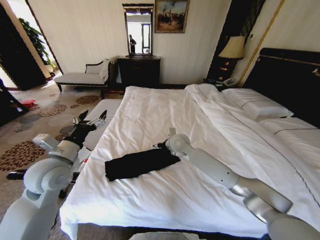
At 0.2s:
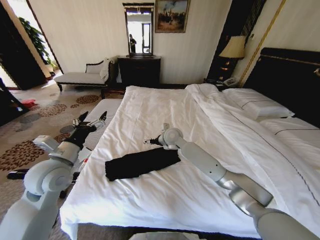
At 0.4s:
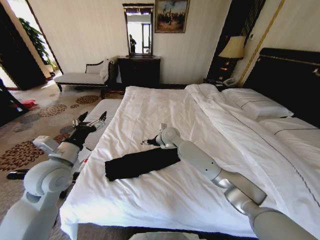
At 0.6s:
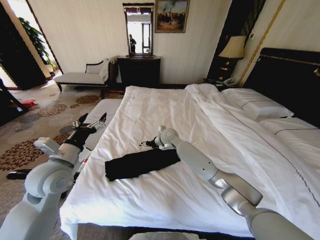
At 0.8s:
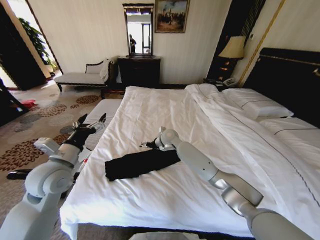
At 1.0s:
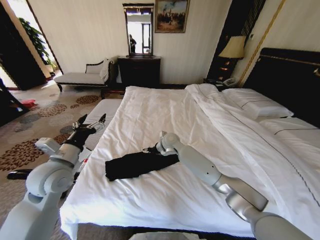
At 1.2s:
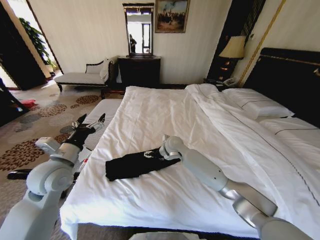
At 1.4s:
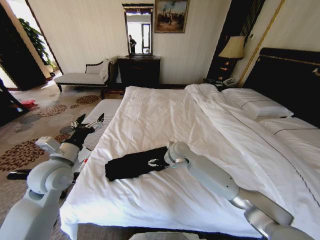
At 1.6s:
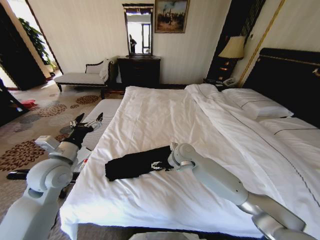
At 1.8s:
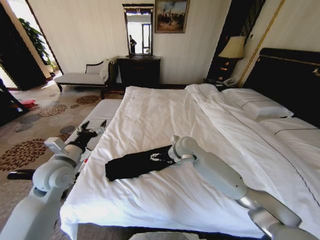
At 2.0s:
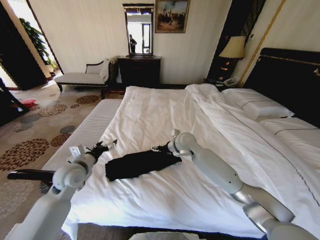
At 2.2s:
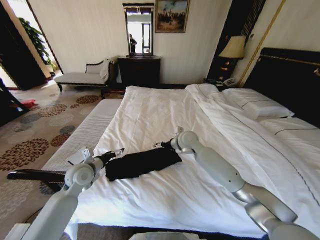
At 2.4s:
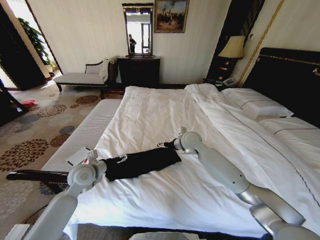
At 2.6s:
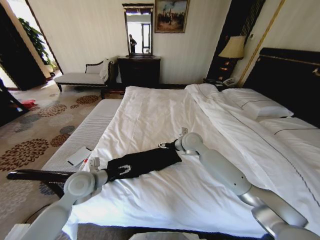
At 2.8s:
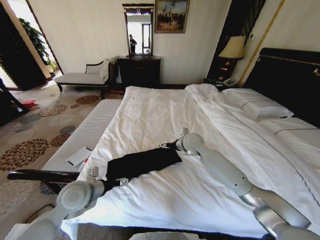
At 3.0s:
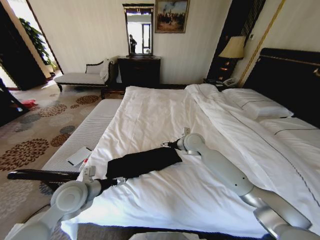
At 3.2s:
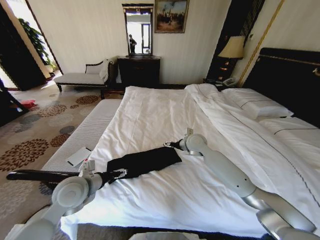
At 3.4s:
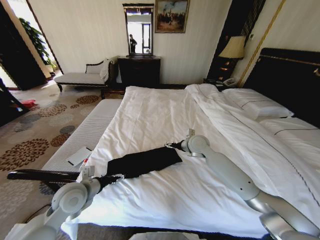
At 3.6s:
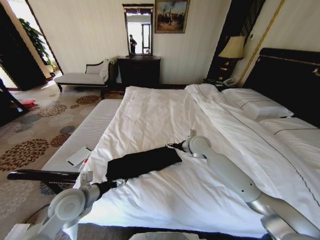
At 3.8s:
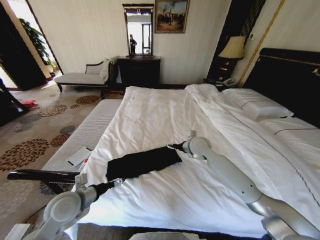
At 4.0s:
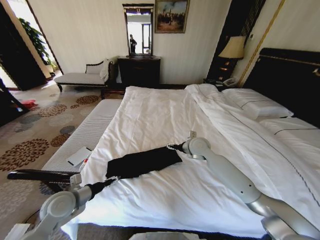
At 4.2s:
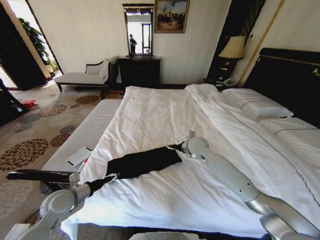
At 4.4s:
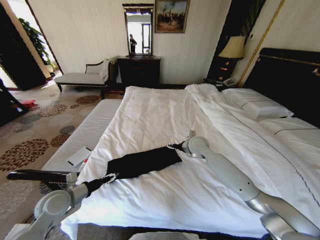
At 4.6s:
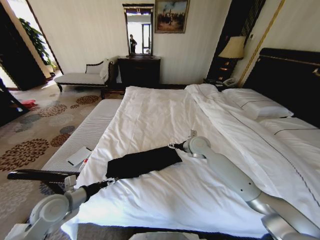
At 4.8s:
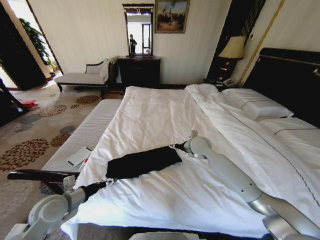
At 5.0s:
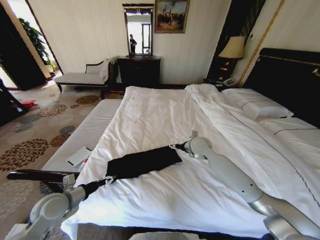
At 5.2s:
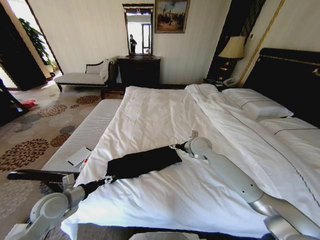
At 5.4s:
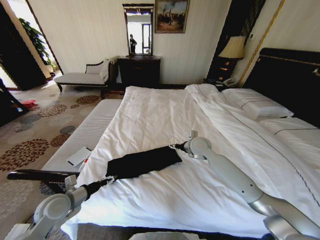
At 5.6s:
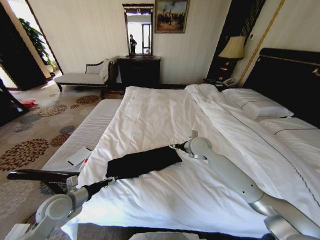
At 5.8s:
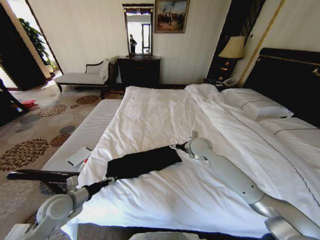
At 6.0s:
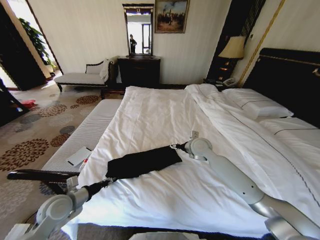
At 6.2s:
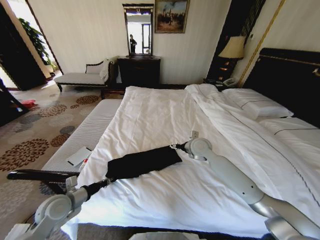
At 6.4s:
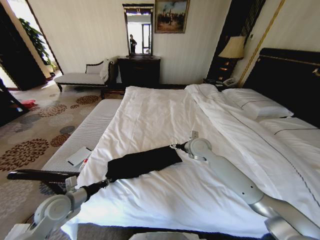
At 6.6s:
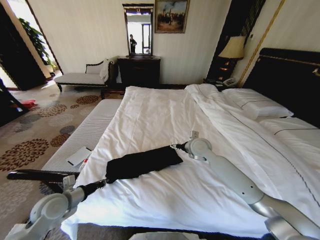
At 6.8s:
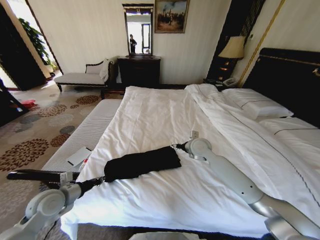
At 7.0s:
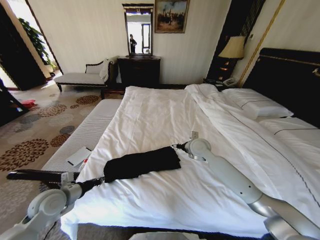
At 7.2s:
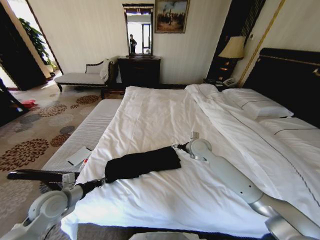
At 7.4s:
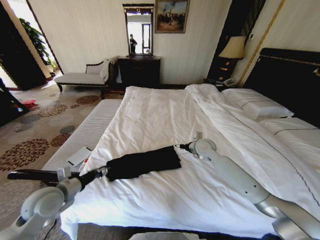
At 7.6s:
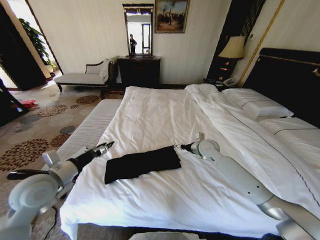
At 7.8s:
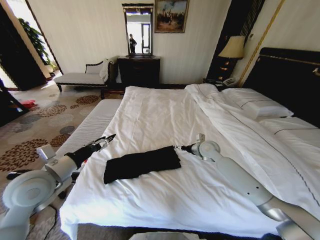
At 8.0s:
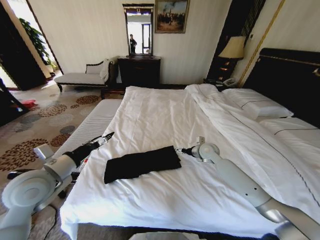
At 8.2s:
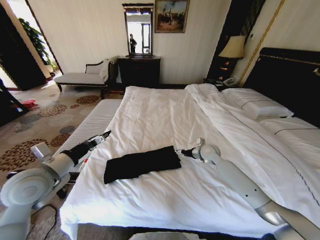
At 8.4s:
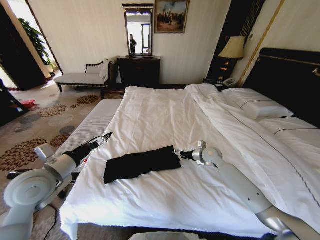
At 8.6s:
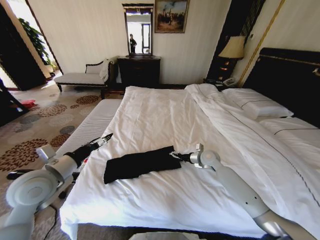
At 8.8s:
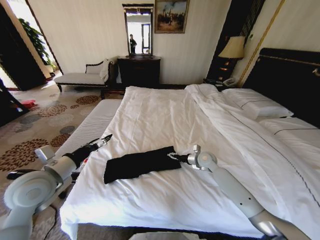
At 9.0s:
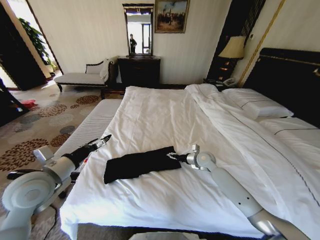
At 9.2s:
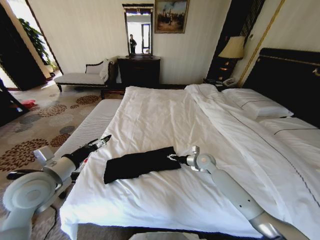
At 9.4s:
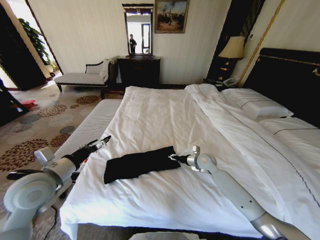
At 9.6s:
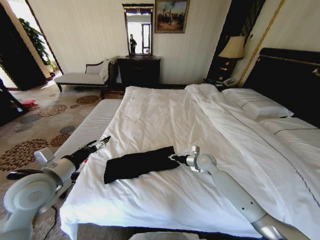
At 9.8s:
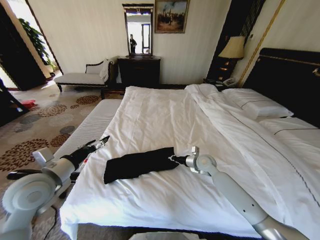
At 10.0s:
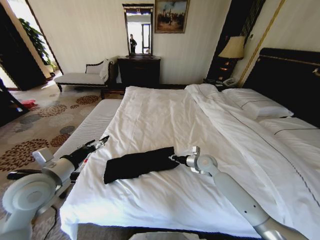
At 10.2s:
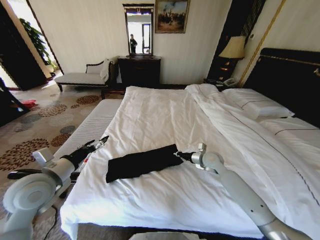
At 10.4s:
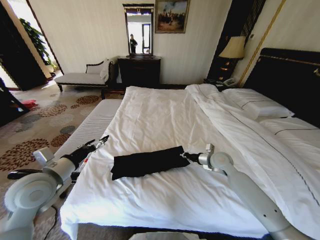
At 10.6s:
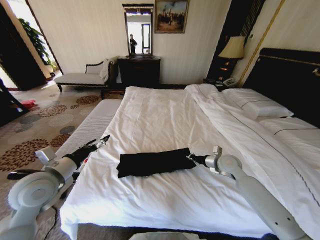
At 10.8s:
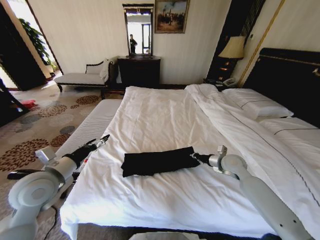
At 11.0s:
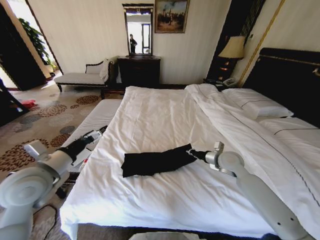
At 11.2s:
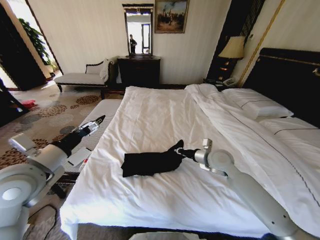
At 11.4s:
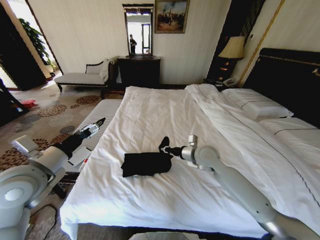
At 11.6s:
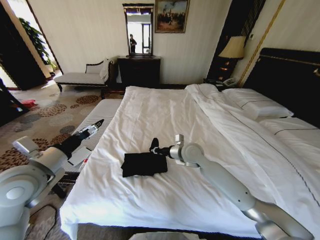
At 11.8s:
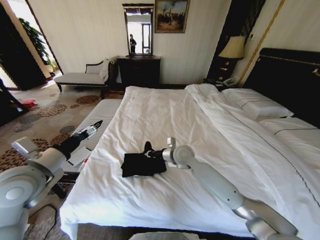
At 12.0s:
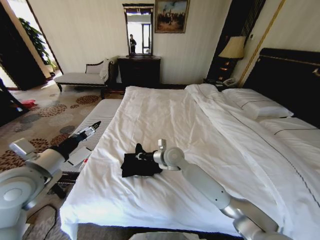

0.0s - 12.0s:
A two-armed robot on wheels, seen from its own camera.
Task of the whole recording: Fold the clothes on the bed.
0.0s - 1.6s: The right gripper changes place by roughly 5 cm.
1.6s - 3.0s: The left gripper heads downward, covering about 5 cm. Meanwhile the right gripper shifts approximately 5 cm to the right.
3.0s - 4.4s: The left gripper moves to the left and downward, roughly 10 cm.
4.4s - 6.0s: The left gripper closes.
6.0s - 7.6s: The right gripper heads to the right, covering roughly 5 cm, while the left gripper heads upward, covering about 10 cm.
7.6s - 9.0s: The left gripper opens, while the right gripper heads downward, covering some 10 cm.
9.0s - 10.4s: The right gripper changes place by roughly 10 cm, and closes.
10.4s - 12.0s: The right gripper goes some 25 cm to the left.

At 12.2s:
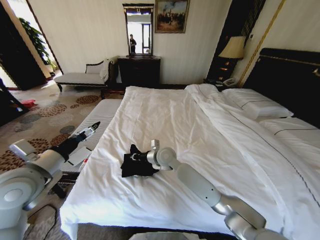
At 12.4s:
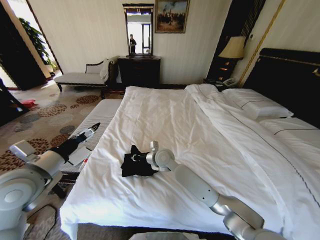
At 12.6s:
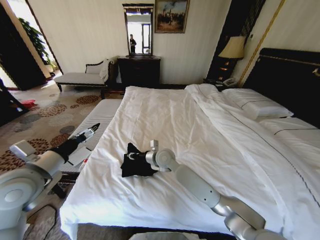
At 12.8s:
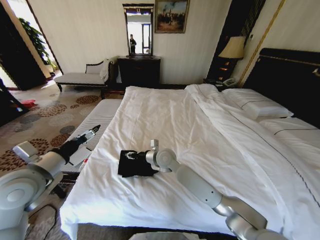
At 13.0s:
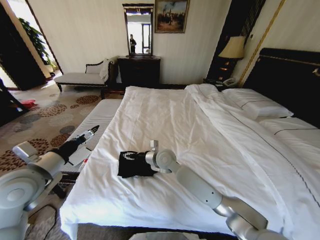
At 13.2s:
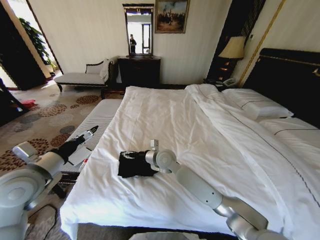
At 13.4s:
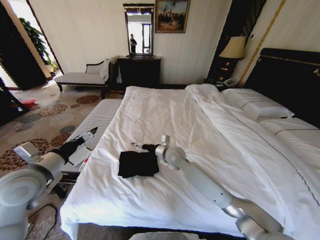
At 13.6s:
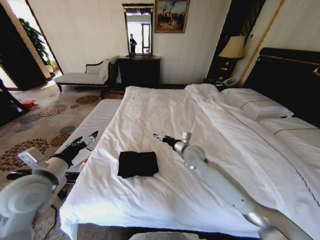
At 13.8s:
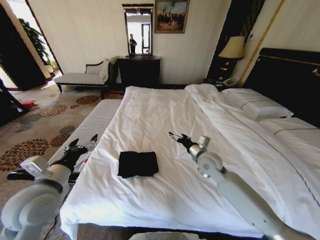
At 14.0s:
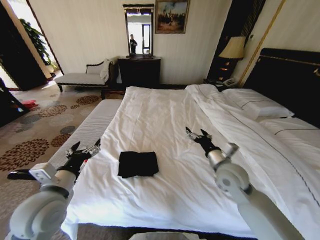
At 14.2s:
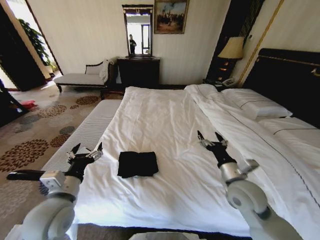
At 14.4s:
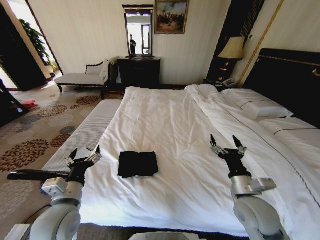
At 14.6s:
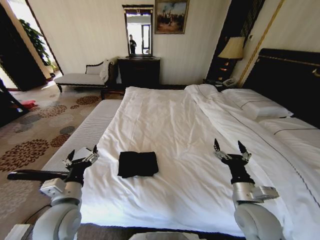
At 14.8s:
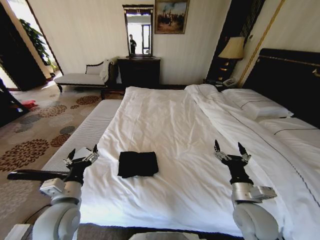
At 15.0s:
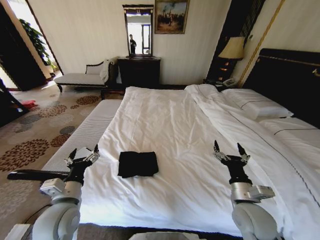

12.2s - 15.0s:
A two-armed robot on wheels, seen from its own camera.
Task of the whole recording: Fold the clothes on the bed.
12.2s - 13.6s: The right gripper heads to the right, covering about 10 cm, and opens its fingers.
13.6s - 15.0s: The left gripper is displaced downward and to the right by about 10 cm. The right gripper is displaced backward and to the right by approximately 25 cm.

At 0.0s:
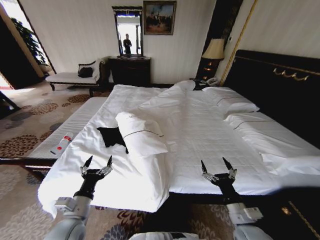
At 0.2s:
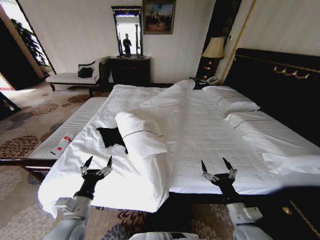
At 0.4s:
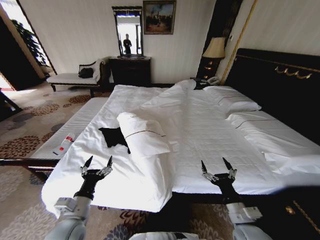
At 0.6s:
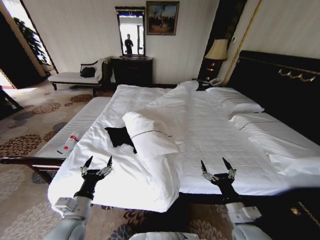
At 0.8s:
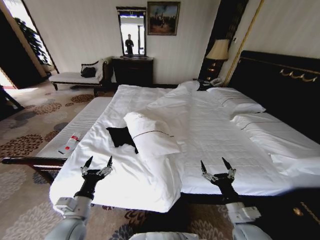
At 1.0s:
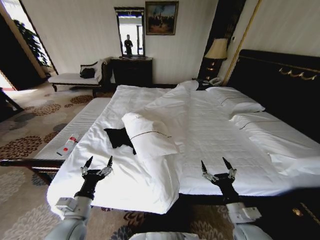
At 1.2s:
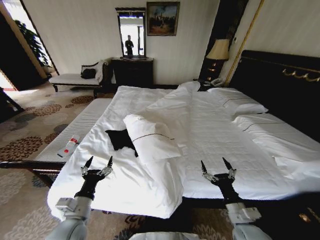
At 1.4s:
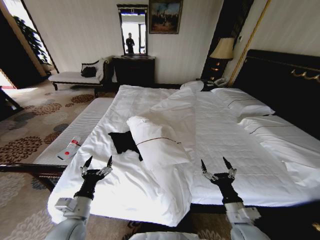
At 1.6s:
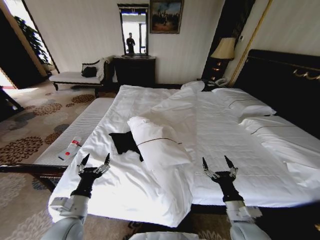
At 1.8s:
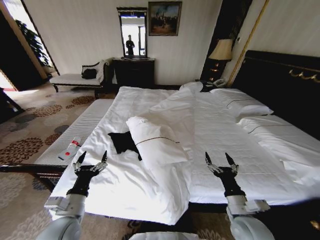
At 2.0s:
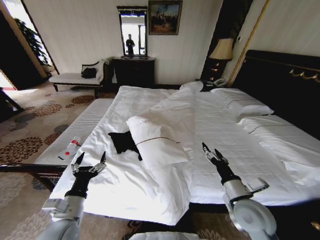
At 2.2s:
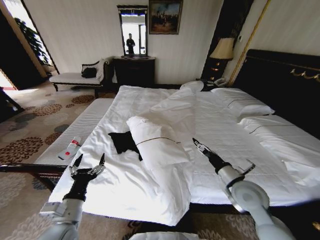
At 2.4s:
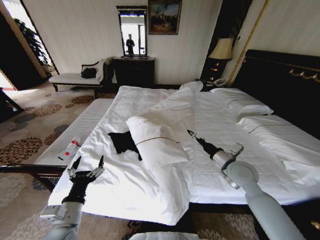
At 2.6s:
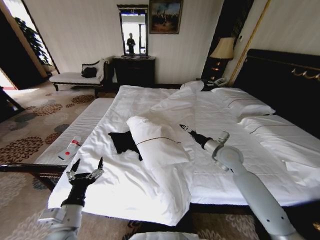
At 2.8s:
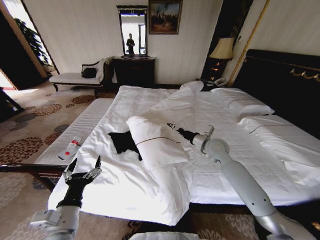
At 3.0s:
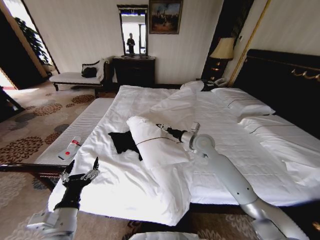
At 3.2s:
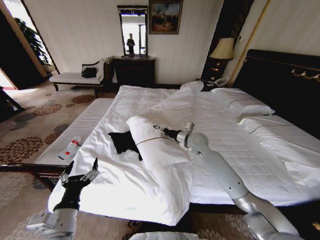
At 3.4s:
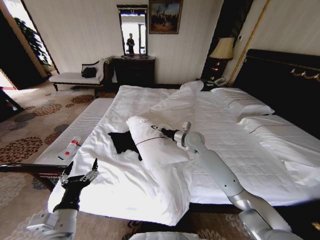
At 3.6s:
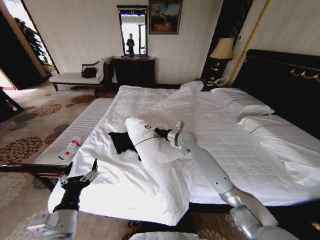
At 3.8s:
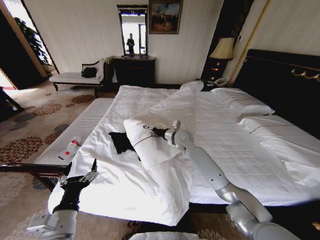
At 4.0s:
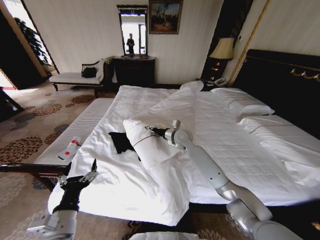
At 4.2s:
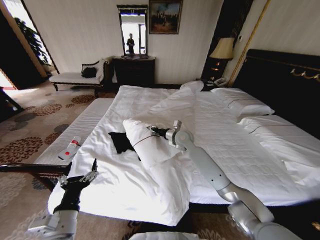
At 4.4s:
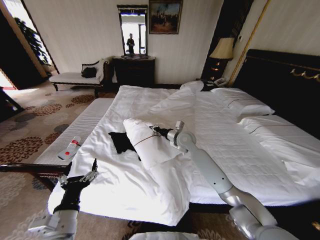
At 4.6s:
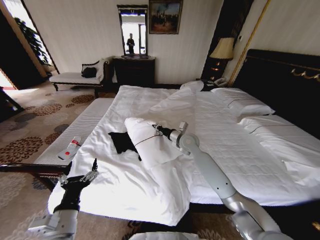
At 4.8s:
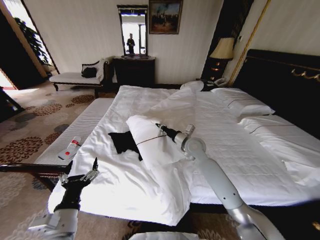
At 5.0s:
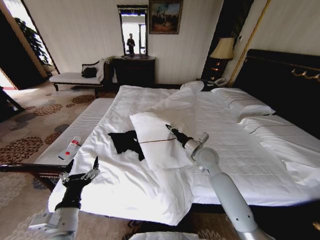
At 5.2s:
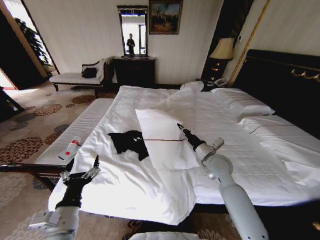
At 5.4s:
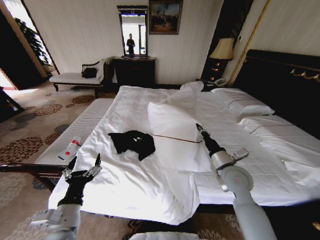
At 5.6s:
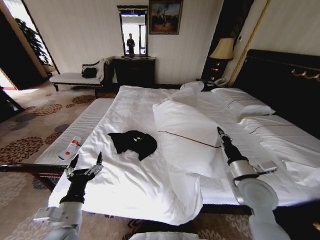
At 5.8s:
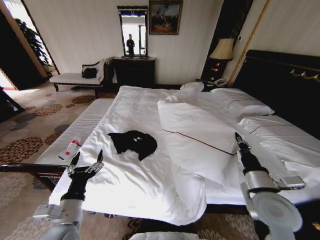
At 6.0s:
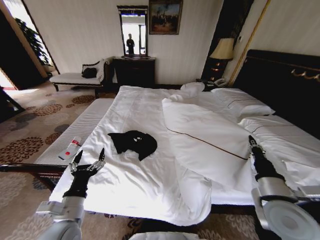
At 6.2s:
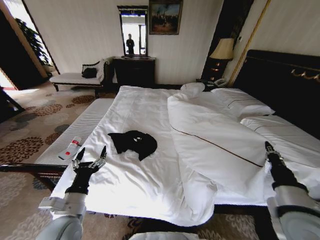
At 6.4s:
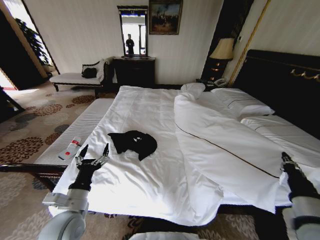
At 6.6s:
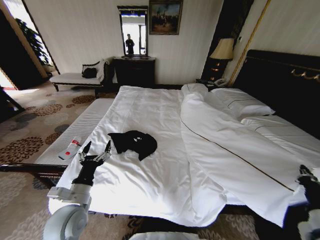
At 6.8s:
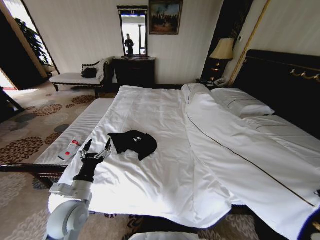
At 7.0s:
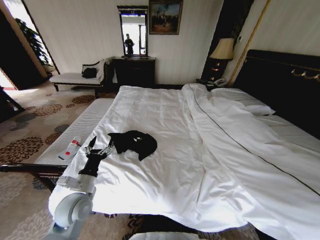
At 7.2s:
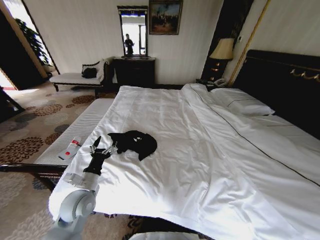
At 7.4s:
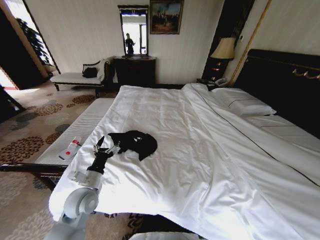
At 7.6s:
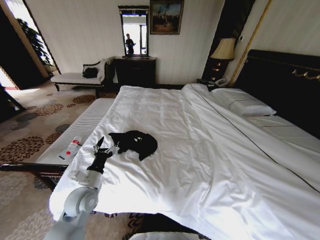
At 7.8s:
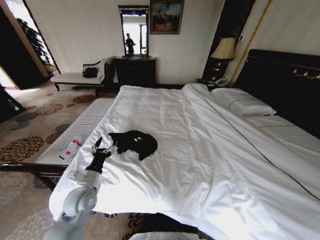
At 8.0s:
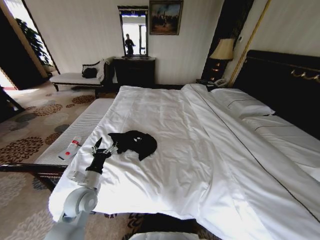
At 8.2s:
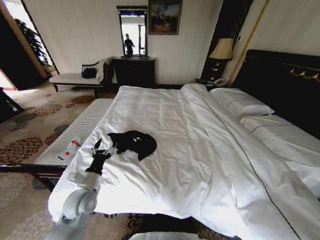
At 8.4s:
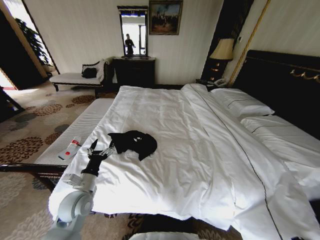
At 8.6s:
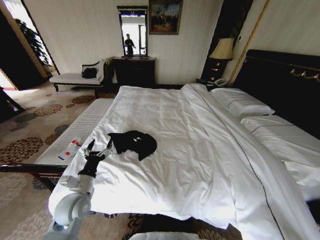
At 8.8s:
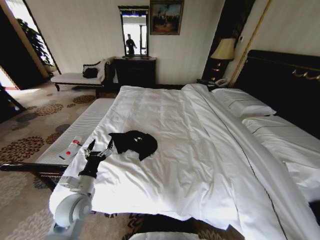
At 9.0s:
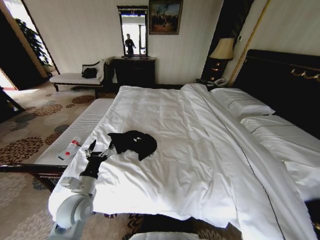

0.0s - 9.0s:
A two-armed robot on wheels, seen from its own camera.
Task of the whole recording: Fold the clothes on the bed.
1.6s - 3.0s: The left gripper changes place by about 5 cm, while the right gripper travels forward by about 30 cm.
3.0s - 4.4s: The right gripper moves to the left, about 5 cm, and closes its fingers.
4.4s - 6.0s: The right gripper shifts roughly 35 cm backward and to the right.
6.0s - 7.6s: The left gripper is displaced forward by roughly 10 cm. Meanwhile the right gripper goes some 15 cm backward and to the right.
7.6s - 9.0s: The right gripper moves downward, about 25 cm.
